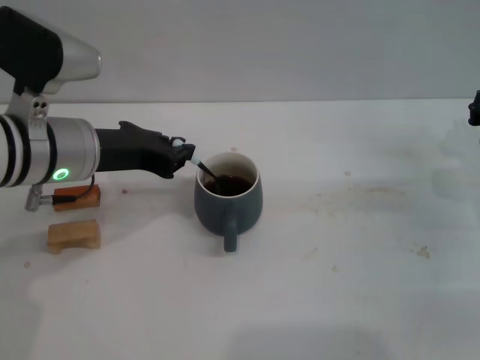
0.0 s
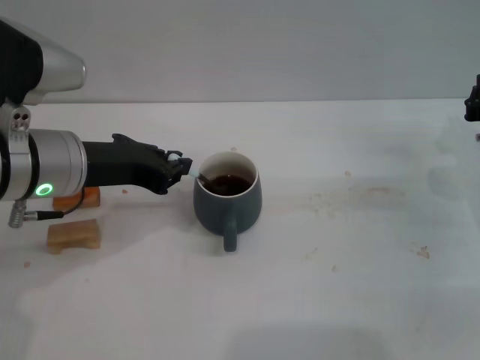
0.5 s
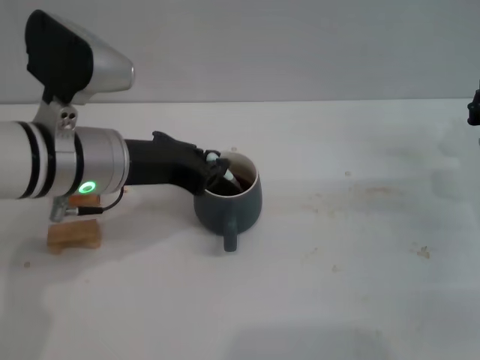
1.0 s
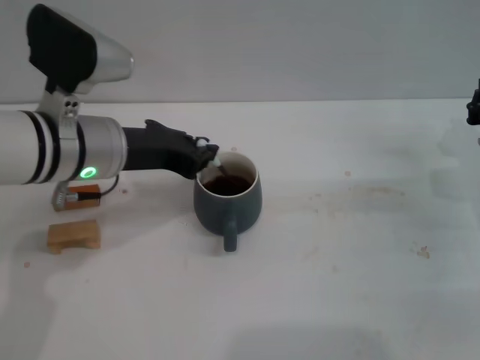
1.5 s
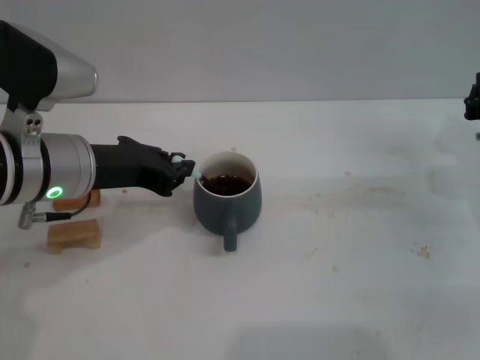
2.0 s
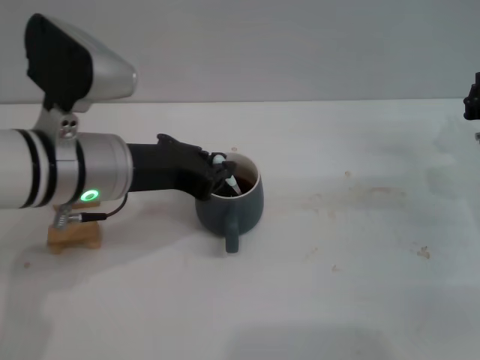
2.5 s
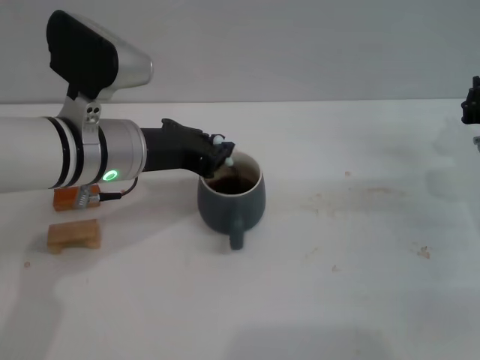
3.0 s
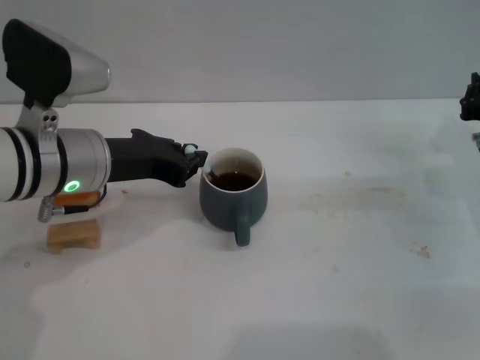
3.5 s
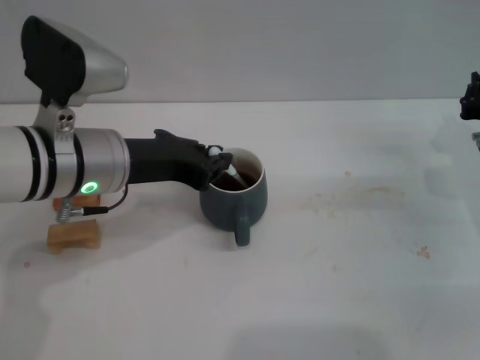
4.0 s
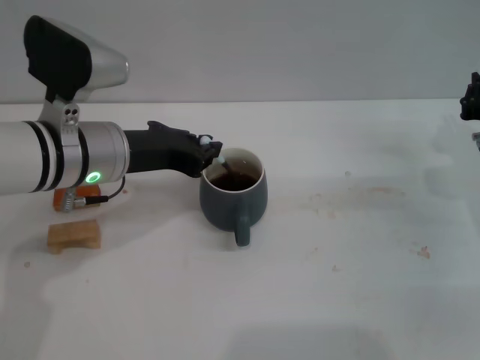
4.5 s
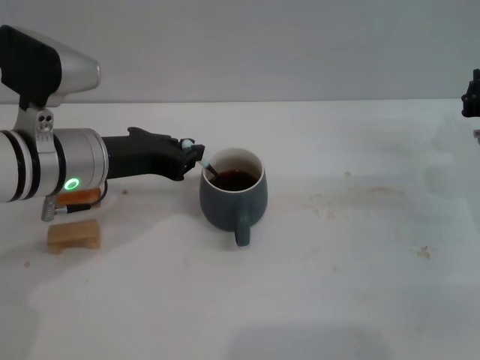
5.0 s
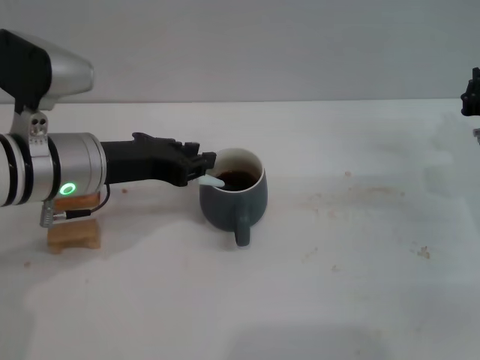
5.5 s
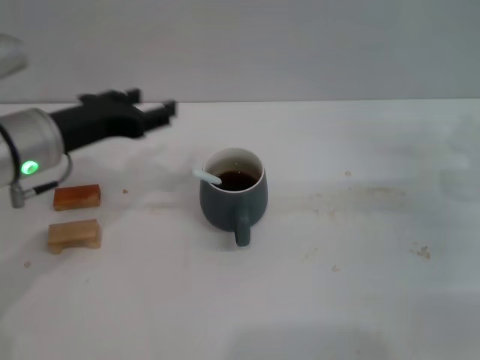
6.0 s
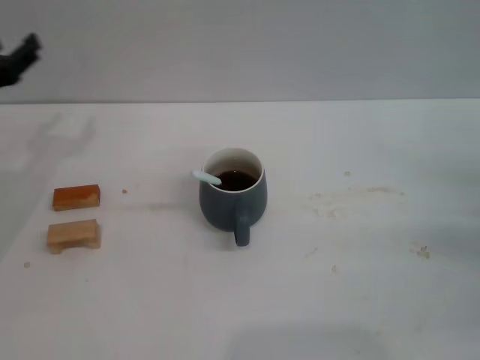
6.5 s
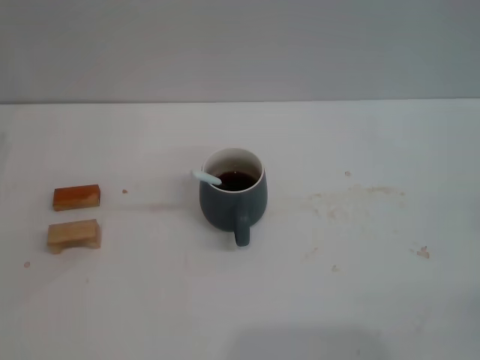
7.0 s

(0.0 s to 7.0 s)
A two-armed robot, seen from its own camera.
Task of the whole recording: Move the grey cup to the center, lift the blue spoon, stir it three times in the cup, and put the spoon into the cup.
Step, 0.0 s - 5.5 s: Stir the coffee in the cup with the left gripper.
0.0 s - 5.0 s: The grippers make only small movements.
5.0 s - 7.0 s: The right gripper is displaced backward and to the right by roughly 20 cm, while the left gripper travels to the left by roughly 20 cm, and opens its fingers.
